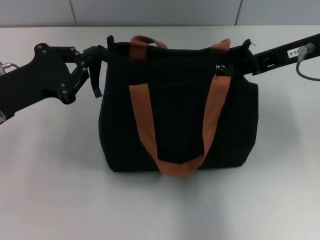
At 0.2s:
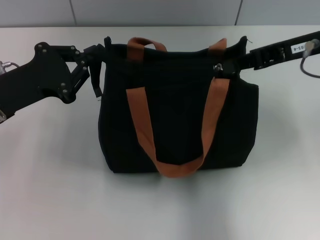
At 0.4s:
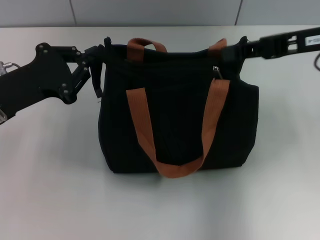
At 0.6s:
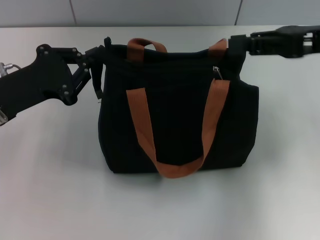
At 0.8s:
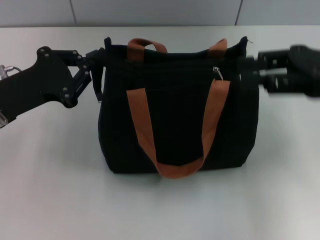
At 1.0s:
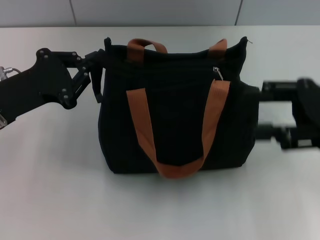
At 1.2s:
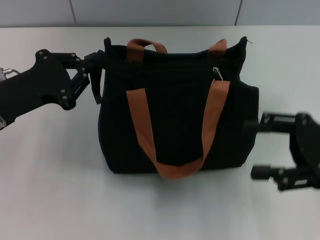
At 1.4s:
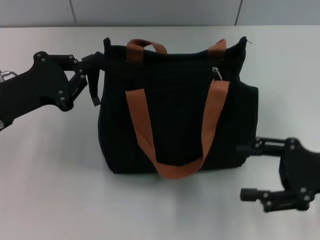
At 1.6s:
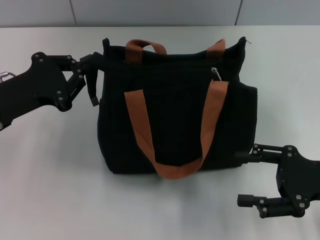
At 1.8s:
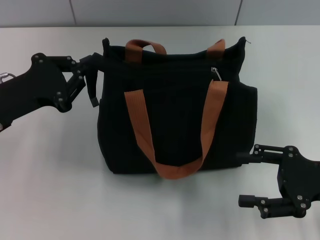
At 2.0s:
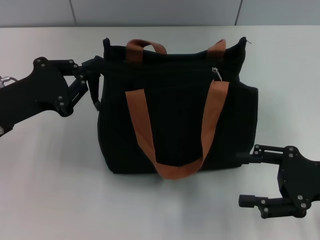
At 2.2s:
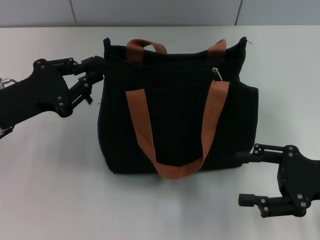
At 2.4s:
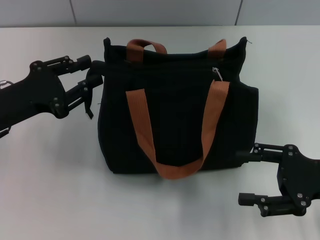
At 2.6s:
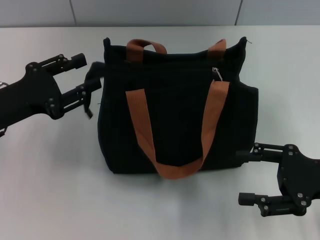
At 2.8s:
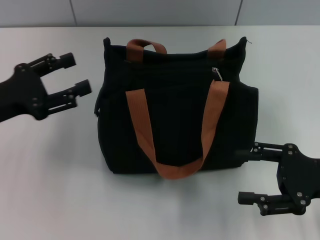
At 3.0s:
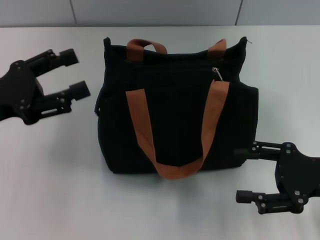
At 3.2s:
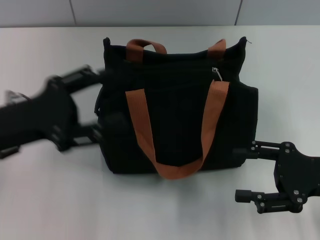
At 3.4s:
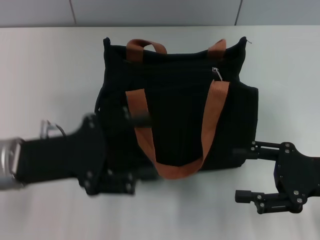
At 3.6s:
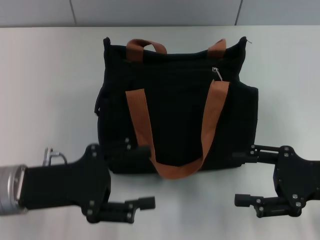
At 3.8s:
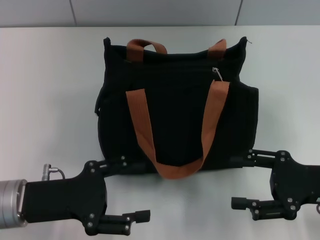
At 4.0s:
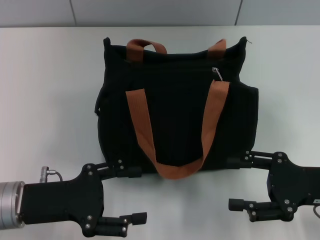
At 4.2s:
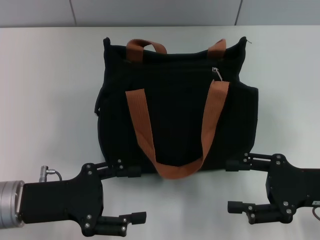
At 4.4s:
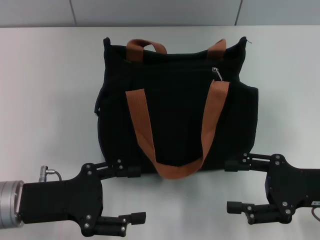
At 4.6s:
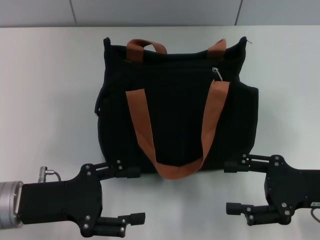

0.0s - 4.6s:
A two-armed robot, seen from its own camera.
Step, 0.6s - 2.6s: Grab the zipper with your left hand.
0.0s - 1.6s: The right gripper shifts roughly 20 cm downward, backward and to the right, and opens up.
1.6s - 3.0s: The left gripper opens.
3.0s - 4.6s: The left gripper shifts some 10 cm downward, backward and to the right.
